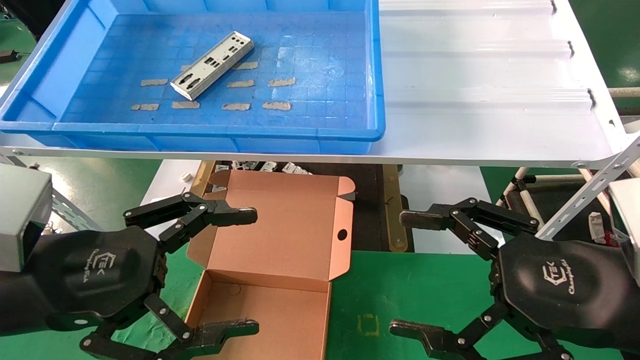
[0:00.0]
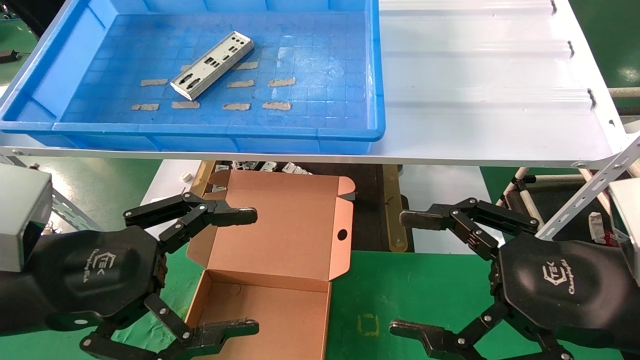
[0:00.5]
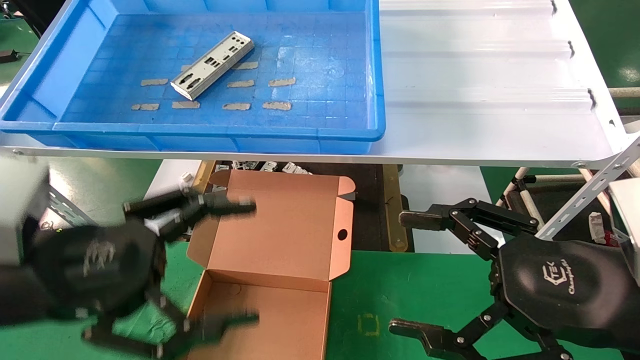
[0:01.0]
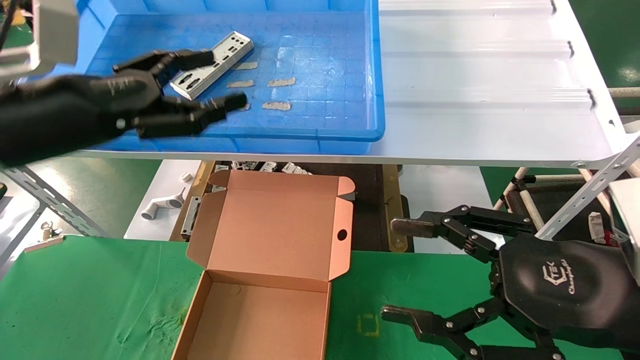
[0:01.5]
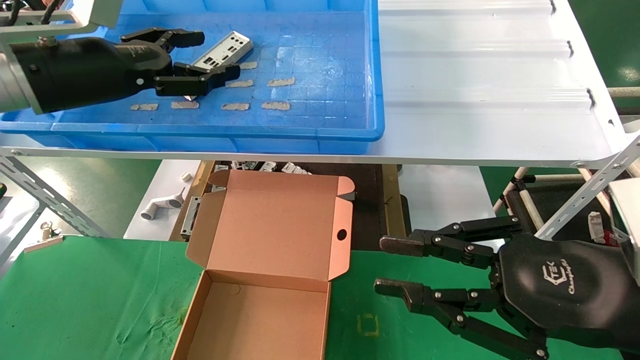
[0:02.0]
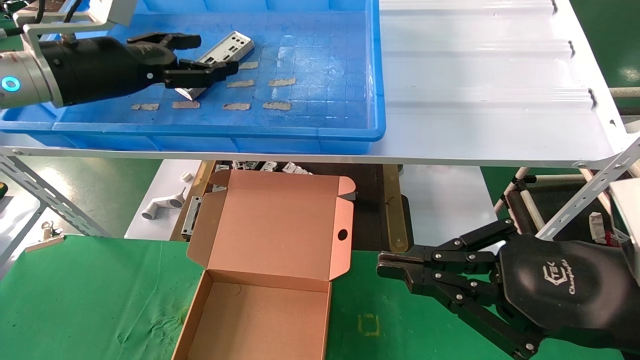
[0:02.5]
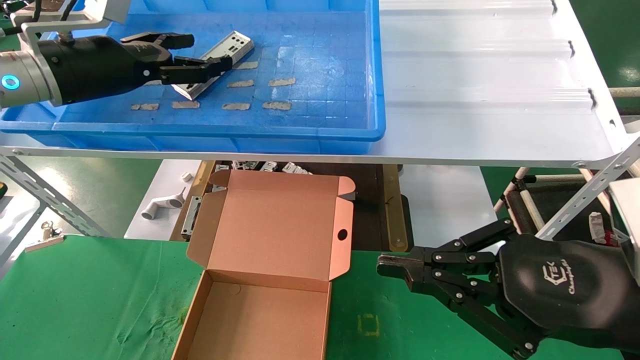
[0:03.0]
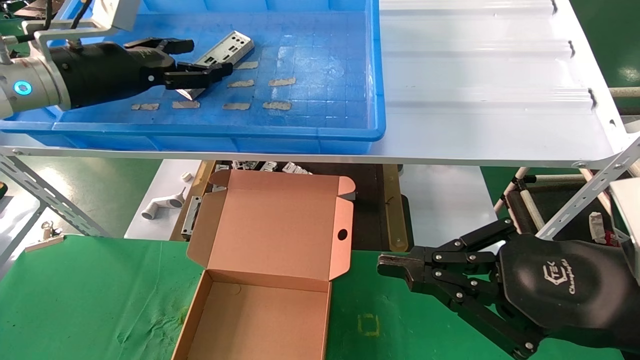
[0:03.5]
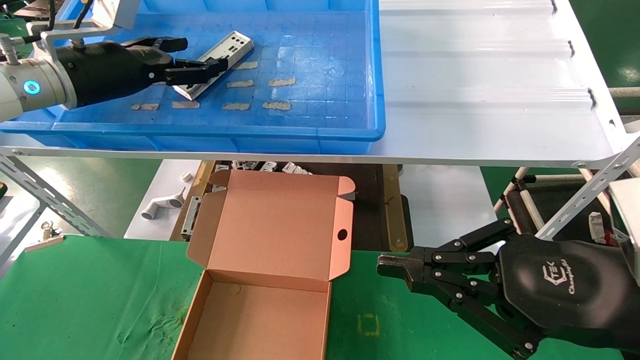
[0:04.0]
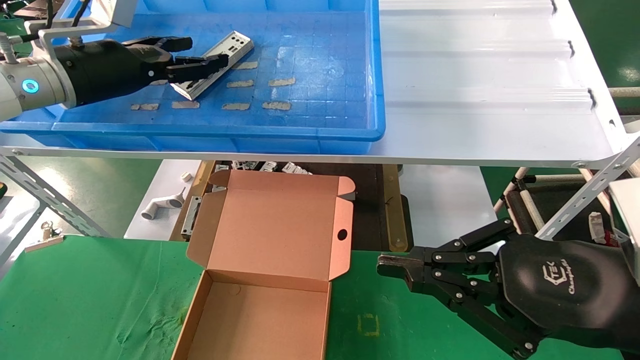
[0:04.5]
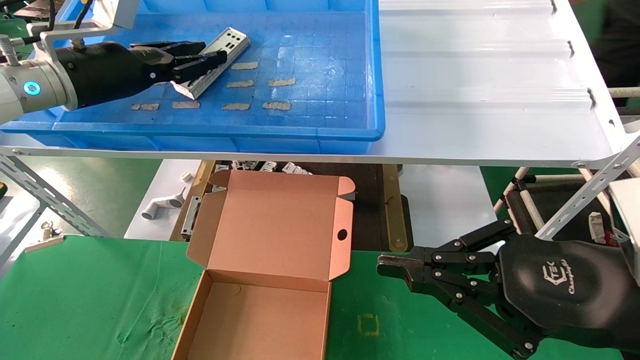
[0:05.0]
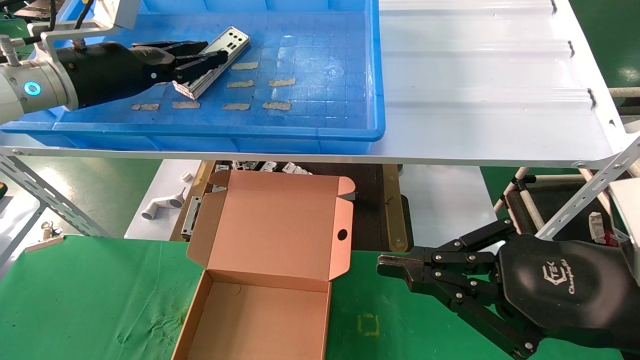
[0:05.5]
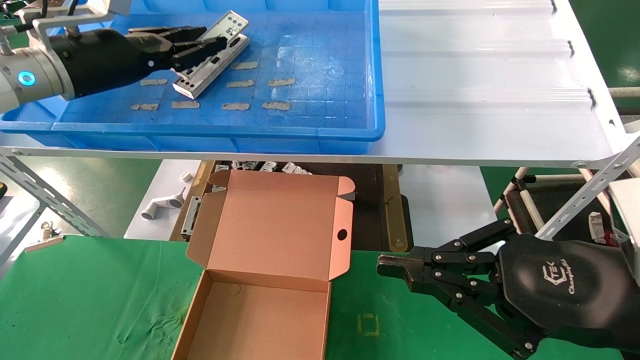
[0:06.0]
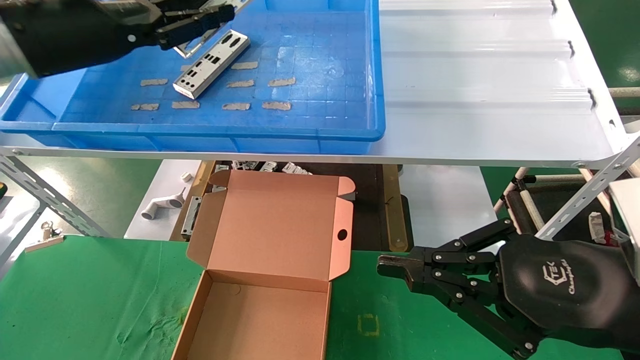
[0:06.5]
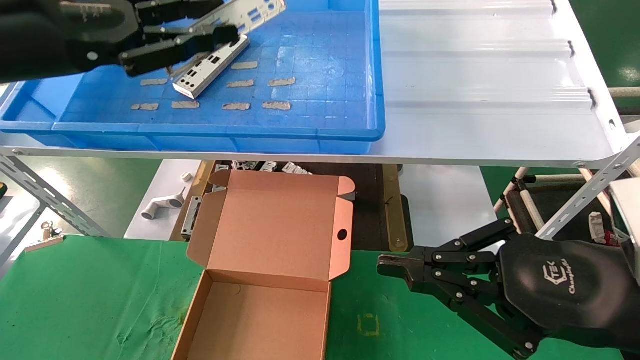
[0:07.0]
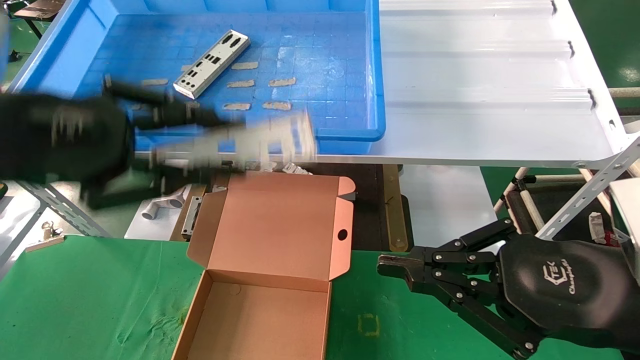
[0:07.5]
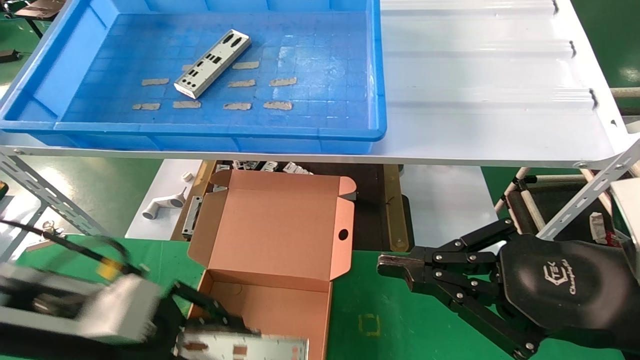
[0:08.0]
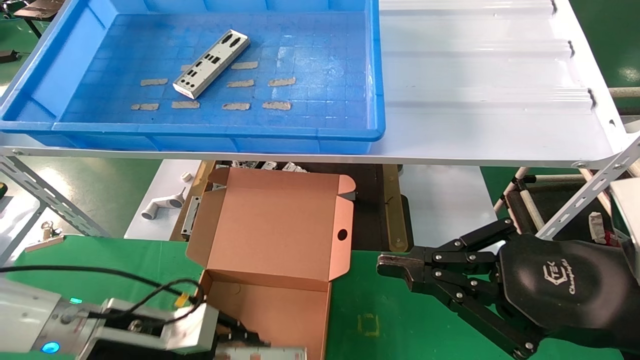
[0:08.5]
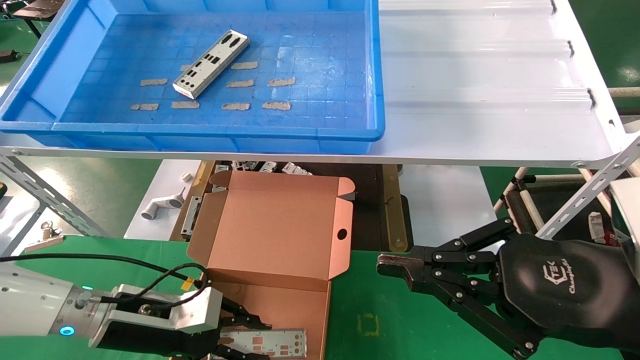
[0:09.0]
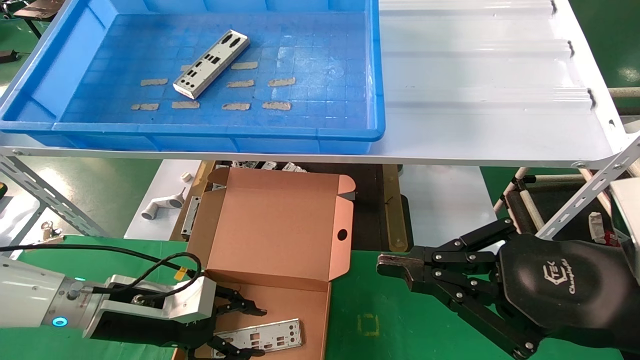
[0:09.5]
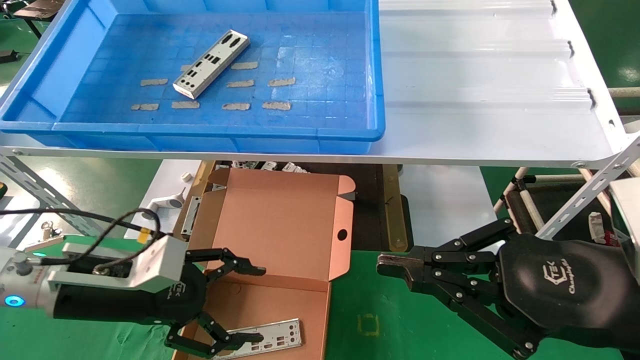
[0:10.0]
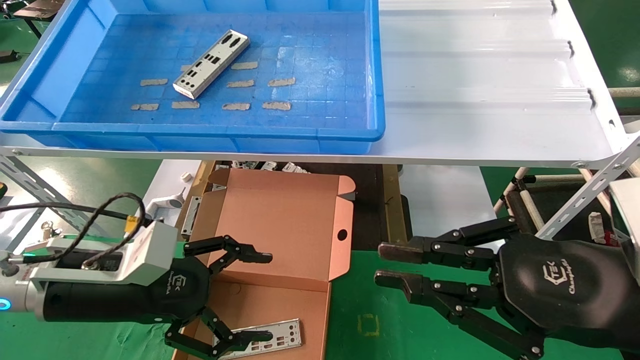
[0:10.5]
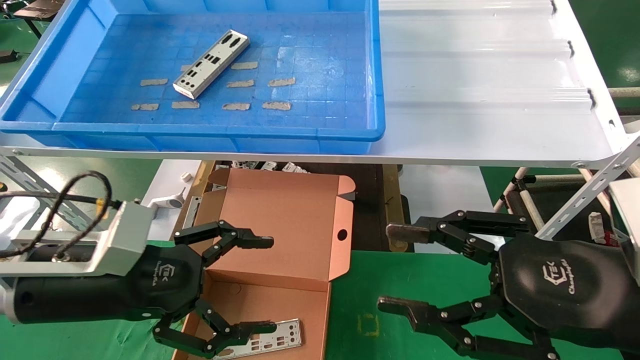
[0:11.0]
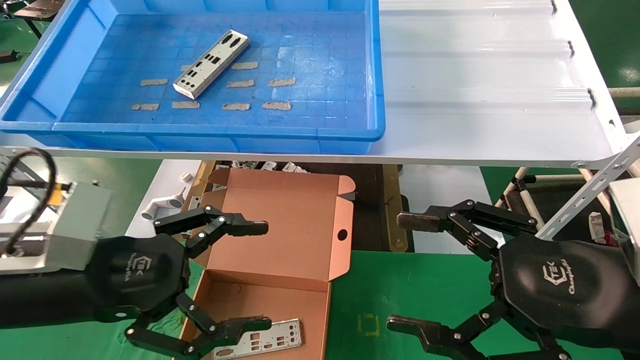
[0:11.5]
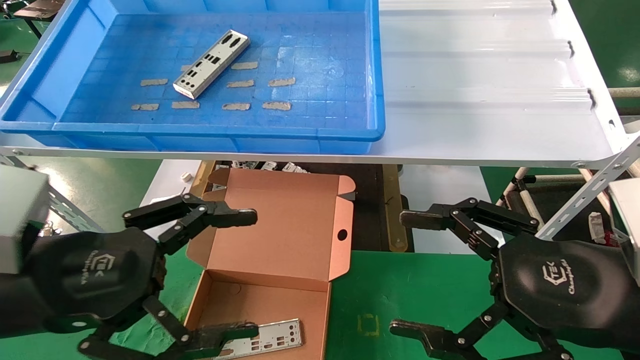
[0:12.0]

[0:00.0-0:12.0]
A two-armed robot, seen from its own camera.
Task of the whole recording: pick up the parts on the tray and put them in the cardboard box.
Step, 0:01.5 to 0:05.0: Pick up the IO bracket from the container box.
Step, 0:05.5 to 0:09.5: Place the IO bracket into the ingredient slot.
0:00.0 to 0:02.0: The left gripper shifts roughly 20 cm forward and upward, while the right gripper closes its fingers.
0:02.0 to 0:04.0: The left gripper heads forward, covering some 5 cm. Meanwhile the right gripper closes.
0:04.0 to 0:06.0: The left gripper closes up.
0:06.0 to 0:08.0: The left gripper shifts some 25 cm downward and backward.
0:08.0 to 0:10.0: The left gripper is displaced forward by roughly 5 cm, and opens its fingers.
0:10.0 to 0:12.0: The right gripper opens up. Meanwhile the left gripper travels backward and upward by about 15 cm.

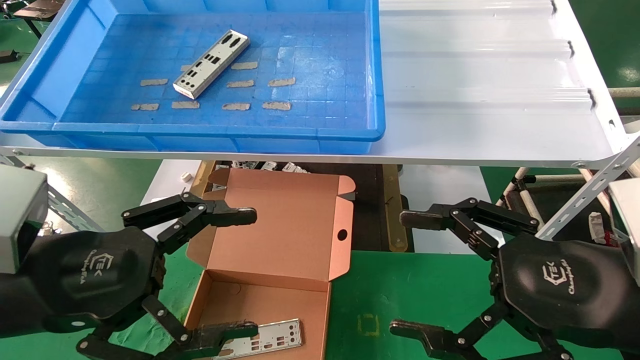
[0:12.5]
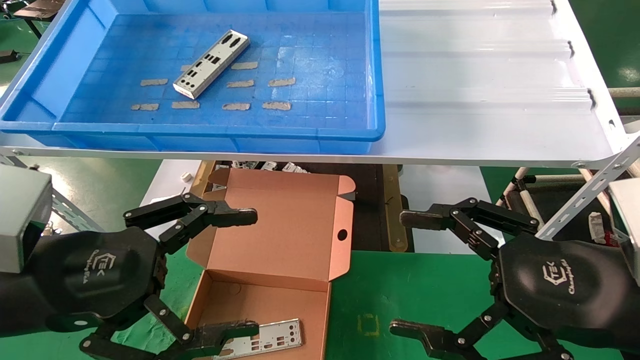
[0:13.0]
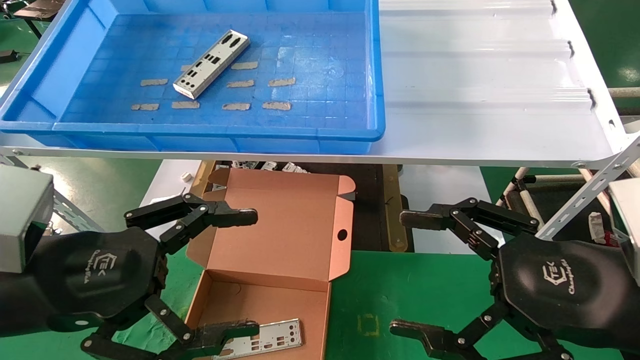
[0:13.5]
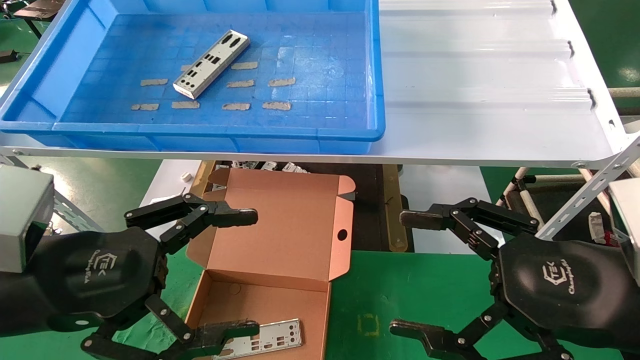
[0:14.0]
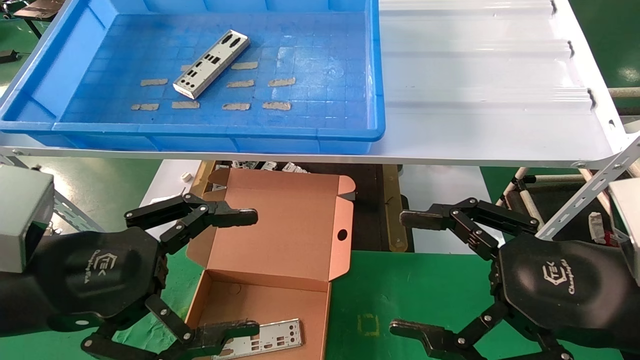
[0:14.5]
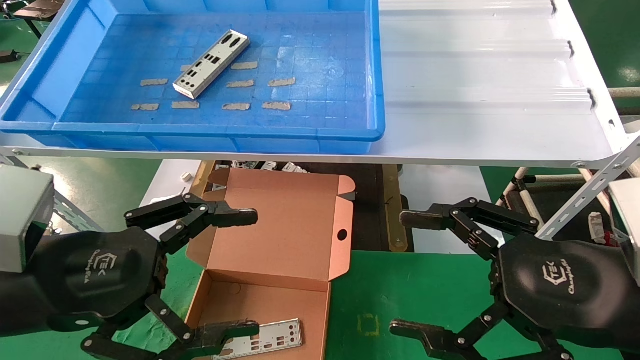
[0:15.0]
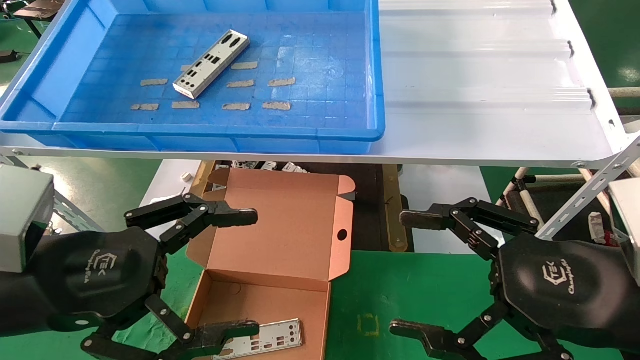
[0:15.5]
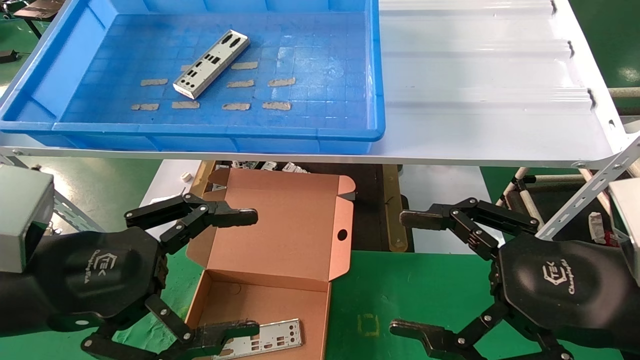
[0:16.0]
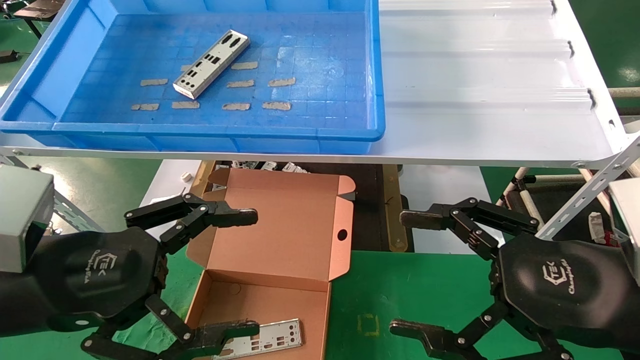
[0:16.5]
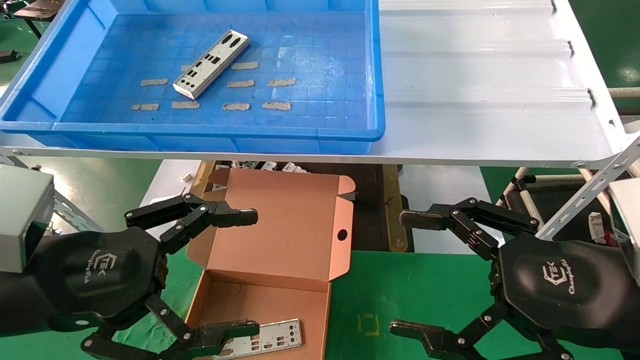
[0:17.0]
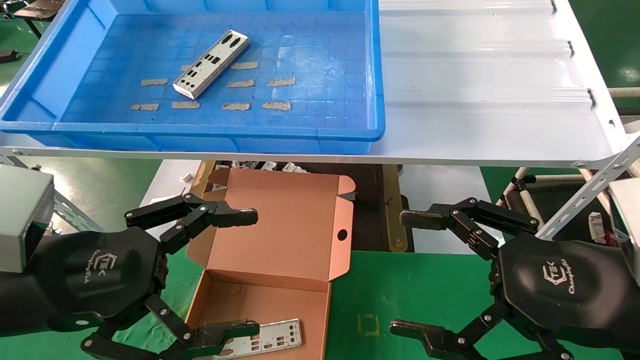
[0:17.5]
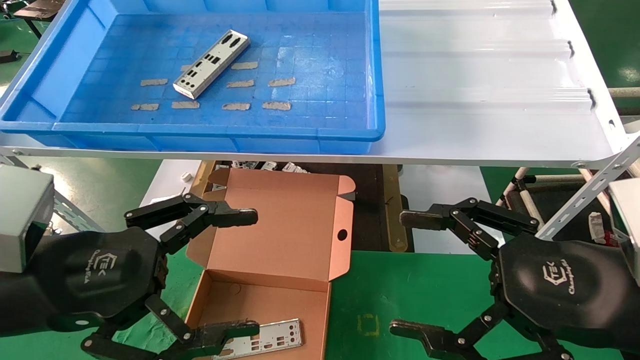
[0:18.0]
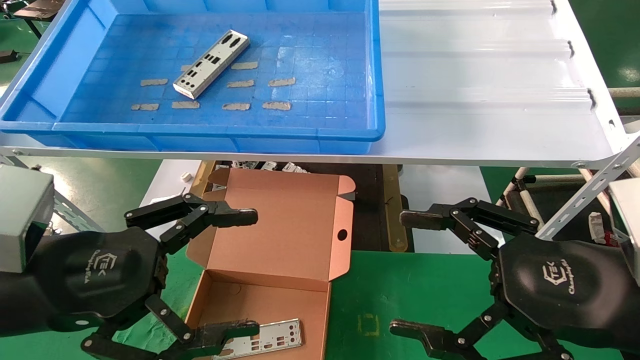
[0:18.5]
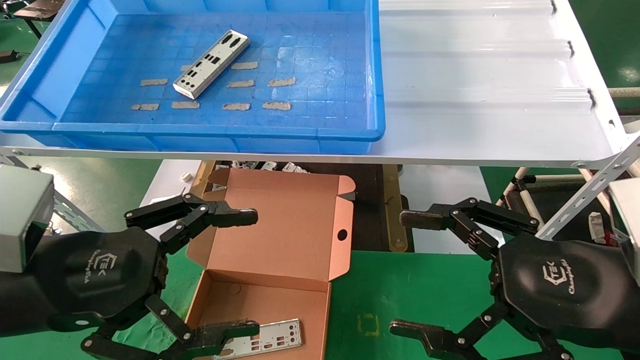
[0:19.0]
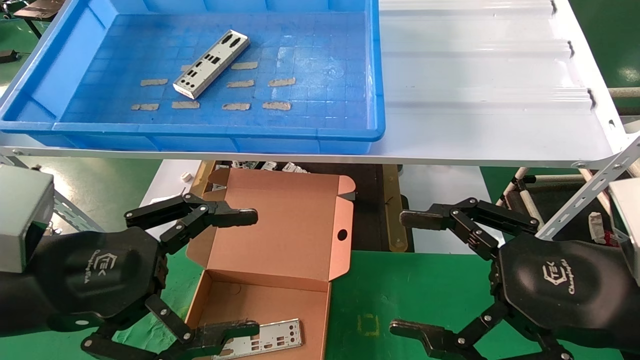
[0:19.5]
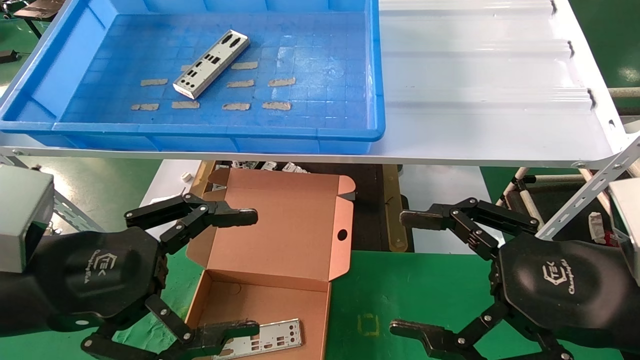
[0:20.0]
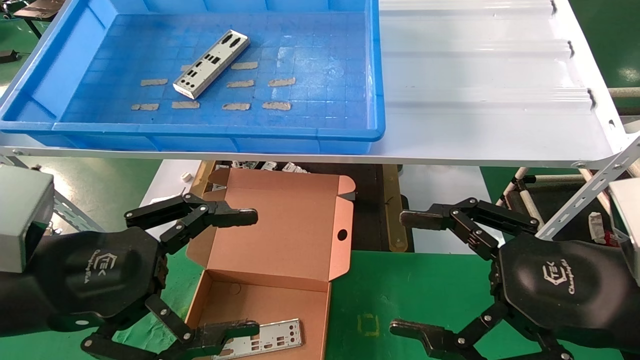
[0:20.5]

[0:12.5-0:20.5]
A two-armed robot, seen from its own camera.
Task of the whole recording: pick up the parts on the tray and put them in the cardboard box.
0:12.5 to 0:20.5: The two grippers keep their place.
